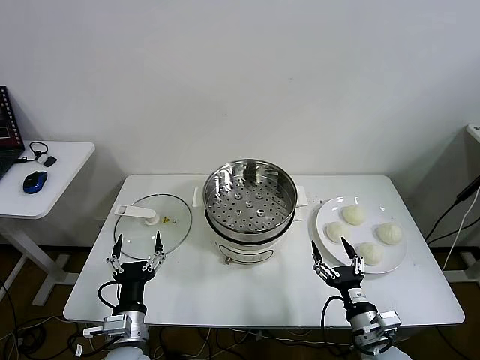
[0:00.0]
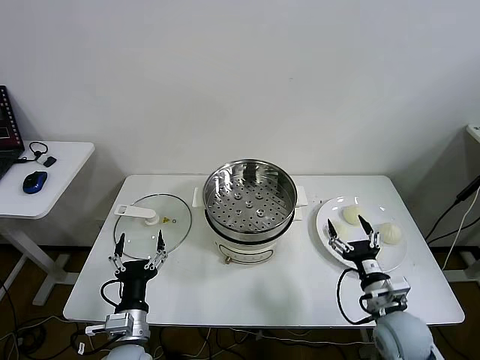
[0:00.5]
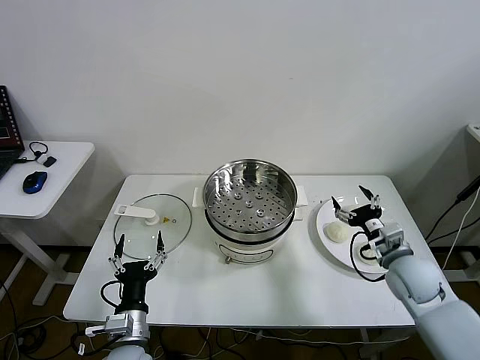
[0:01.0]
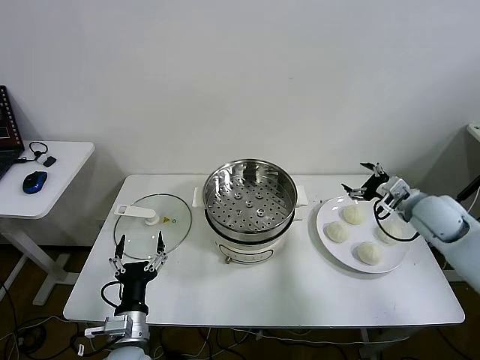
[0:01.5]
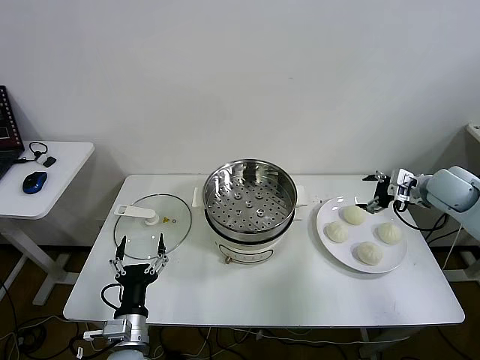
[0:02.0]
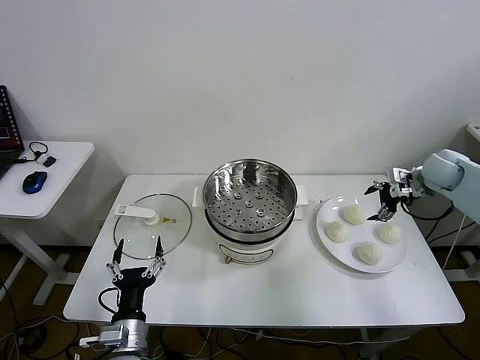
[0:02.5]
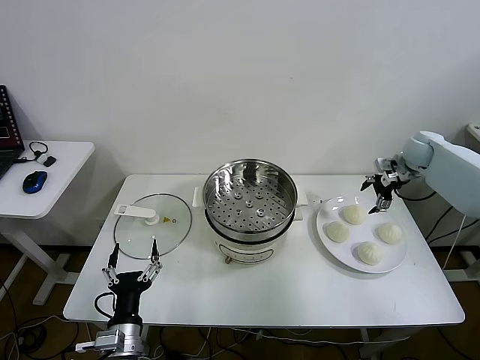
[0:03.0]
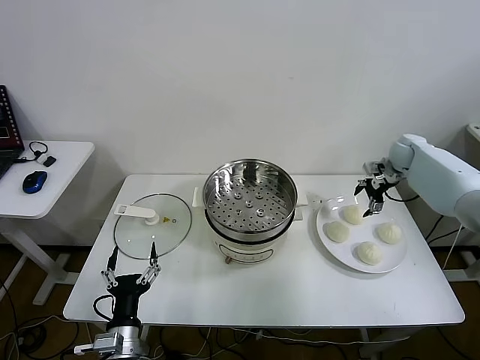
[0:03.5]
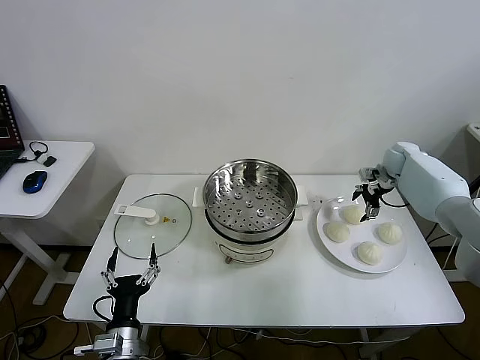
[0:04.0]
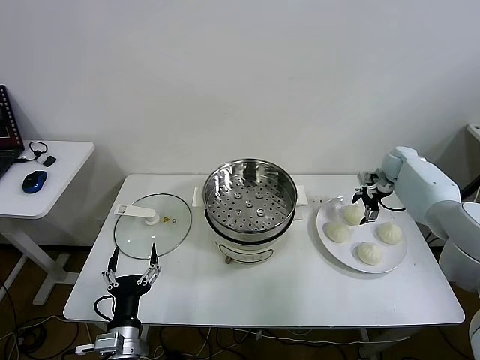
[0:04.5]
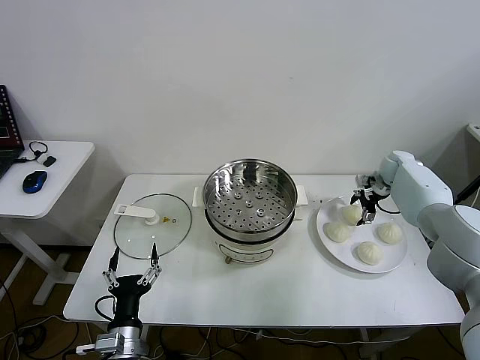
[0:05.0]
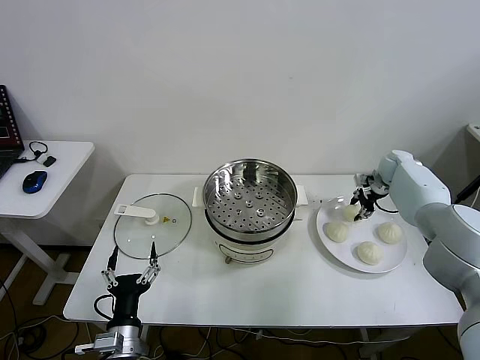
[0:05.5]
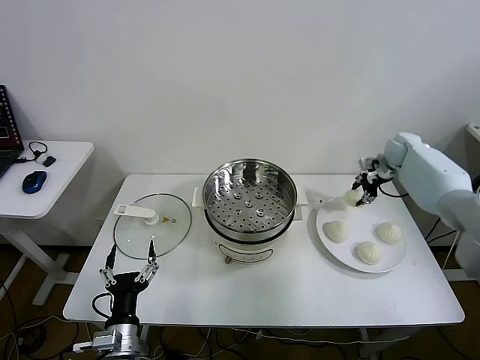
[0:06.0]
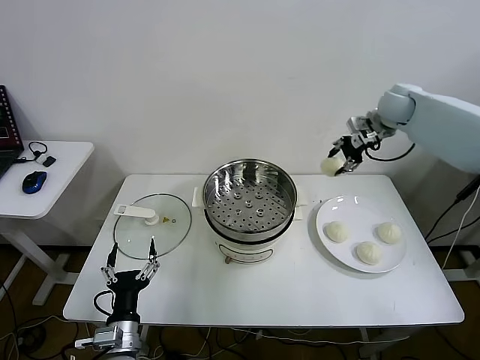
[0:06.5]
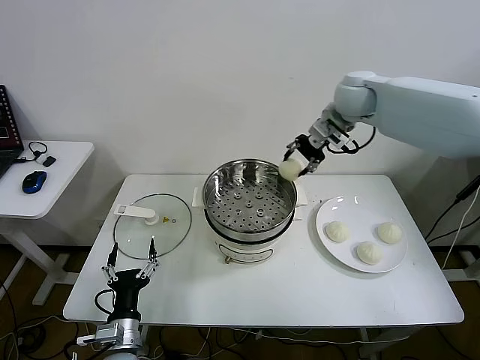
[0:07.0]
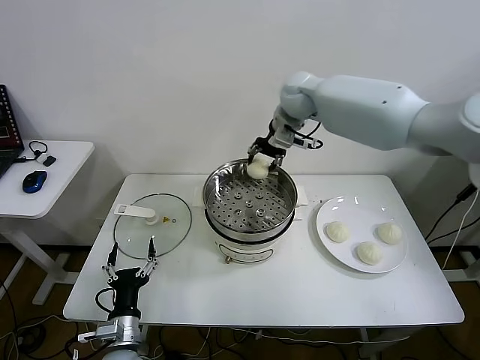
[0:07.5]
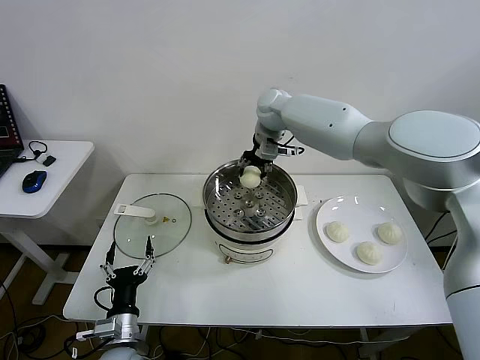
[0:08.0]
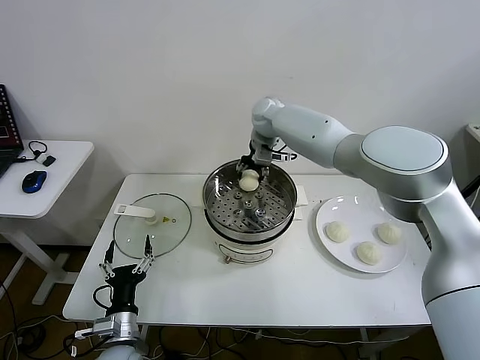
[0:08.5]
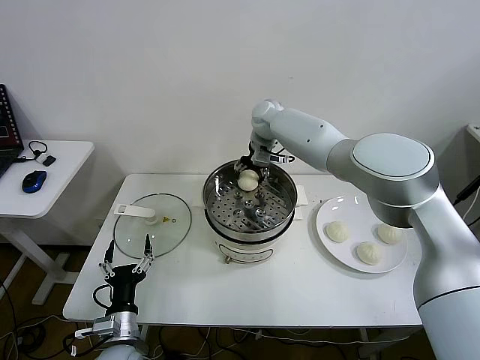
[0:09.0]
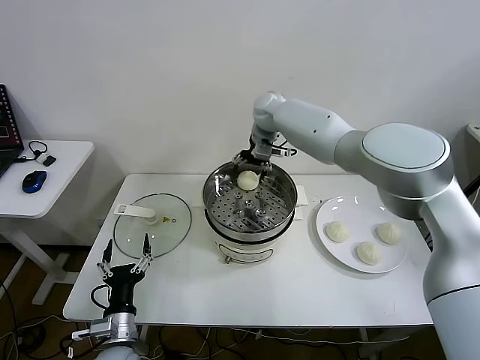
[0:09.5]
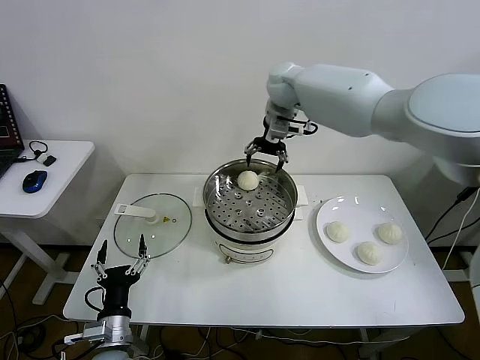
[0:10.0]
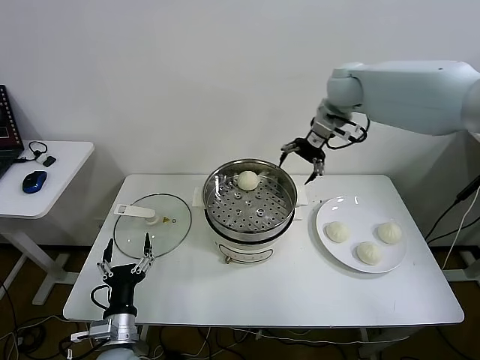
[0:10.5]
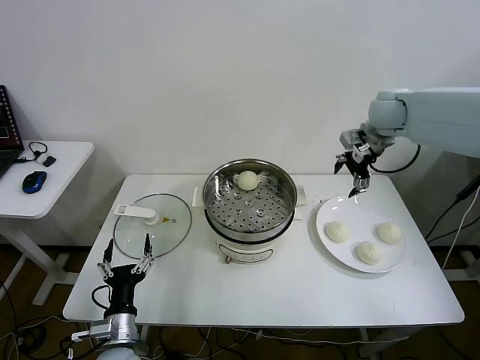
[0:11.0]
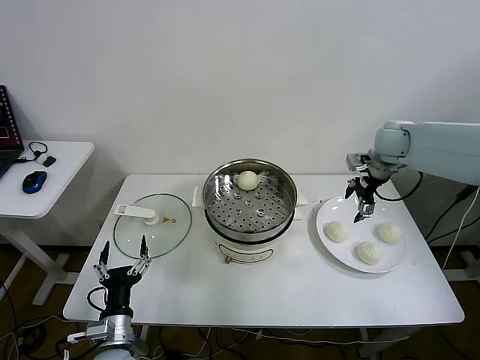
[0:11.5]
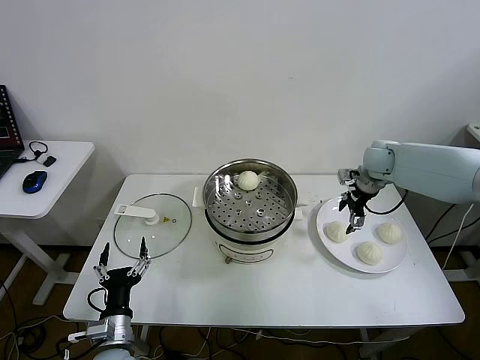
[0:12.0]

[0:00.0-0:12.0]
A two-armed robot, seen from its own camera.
Step, 0:00.0 to 0:05.0: Grasp the baozi in the plate with right gripper.
Step, 0:05.5 to 0:09.5: Place the baozi on the steamer with right gripper.
0:02.0 to 0:04.0: The right gripper is displaced forward and downward by approximately 15 cm.
0:04.0 to 0:06.0: The right gripper heads upward, covering about 5 cm, and closes.
0:06.0 to 0:08.0: The right gripper moves to the left, about 35 cm.
0:08.0 to 0:10.0: The right gripper travels upward by approximately 10 cm, and opens its fingers.
0:10.0 to 0:12.0: The right gripper moves to the right and downward, approximately 30 cm.

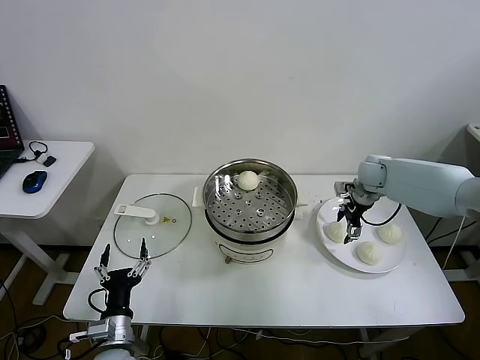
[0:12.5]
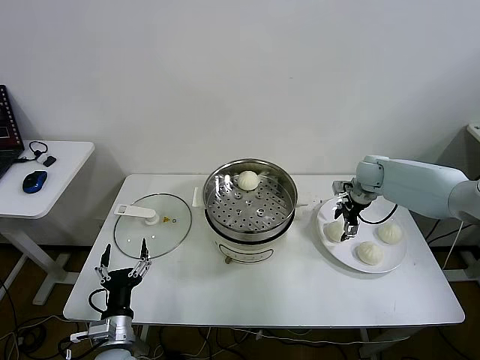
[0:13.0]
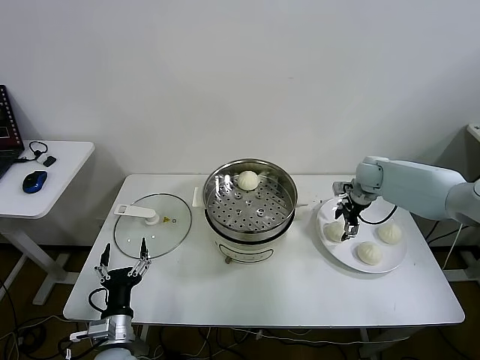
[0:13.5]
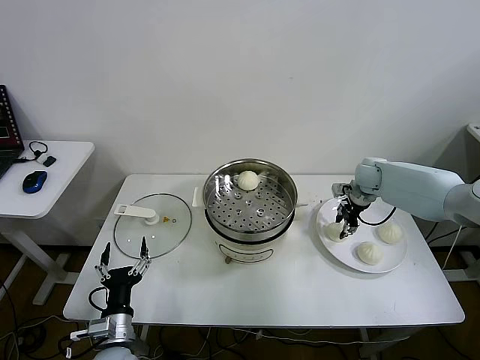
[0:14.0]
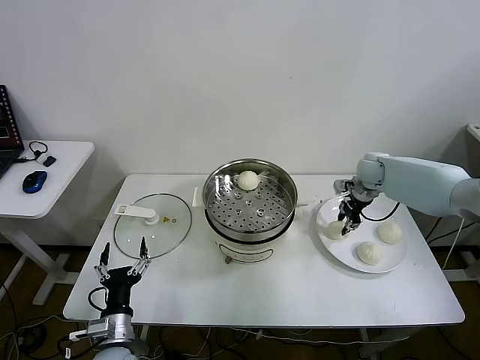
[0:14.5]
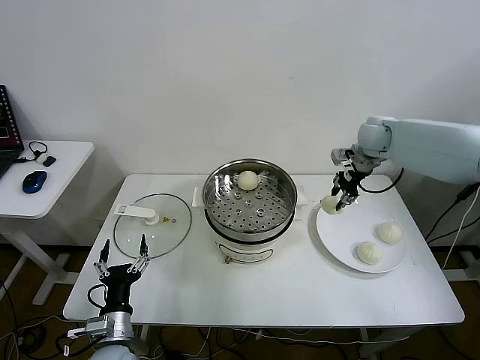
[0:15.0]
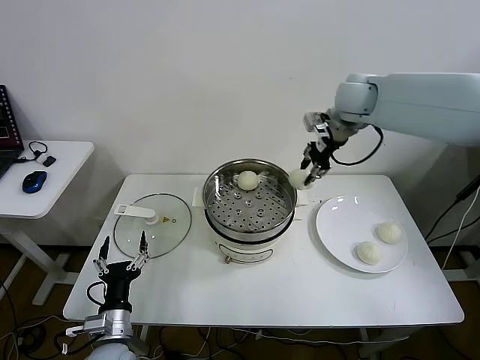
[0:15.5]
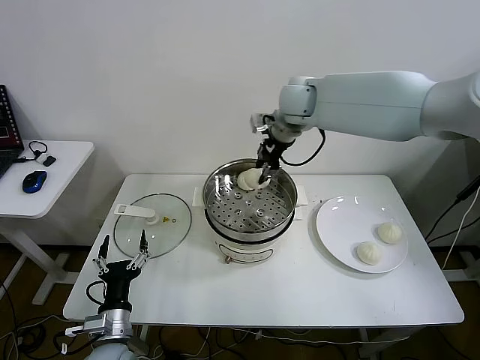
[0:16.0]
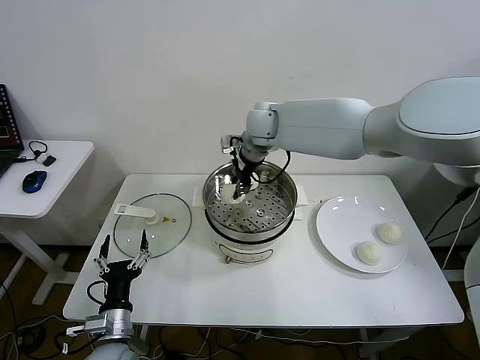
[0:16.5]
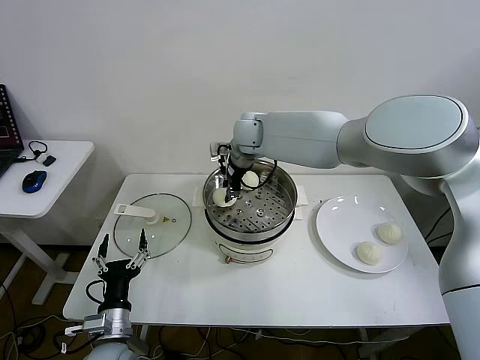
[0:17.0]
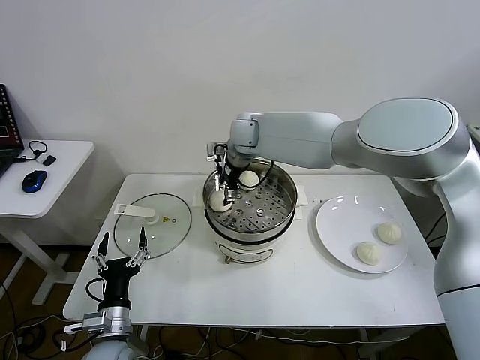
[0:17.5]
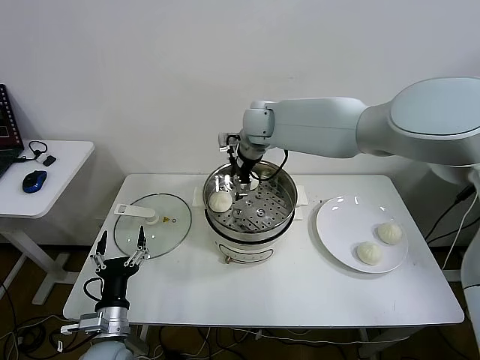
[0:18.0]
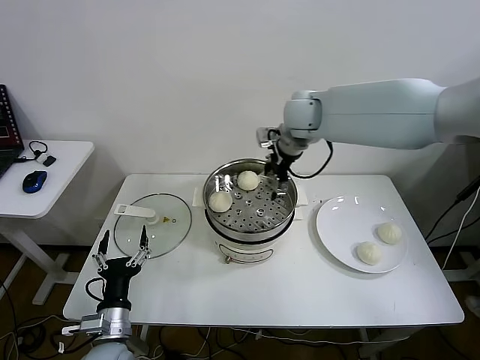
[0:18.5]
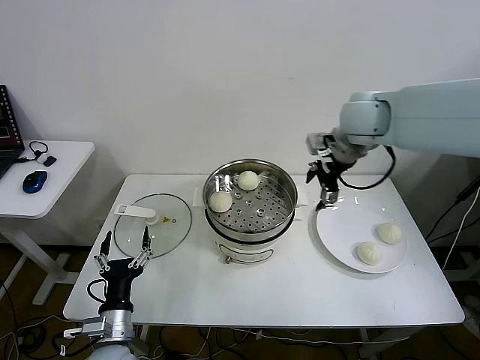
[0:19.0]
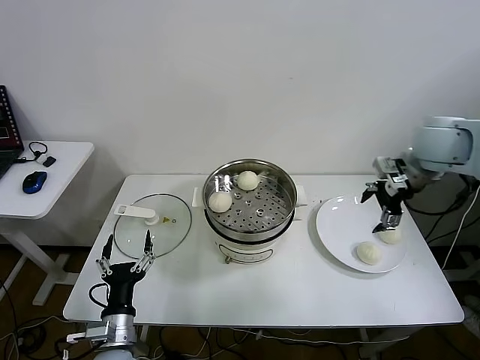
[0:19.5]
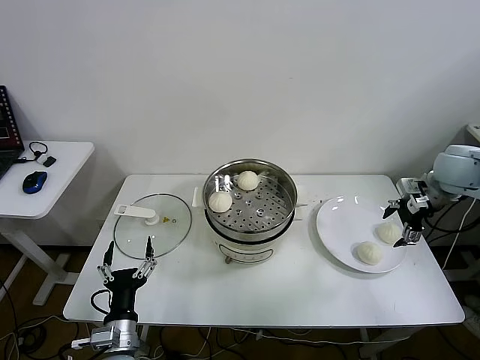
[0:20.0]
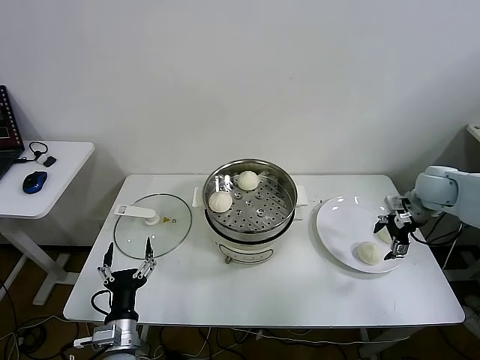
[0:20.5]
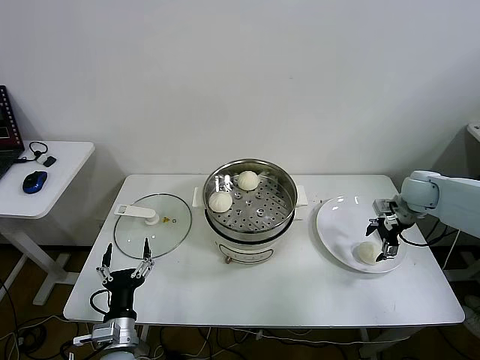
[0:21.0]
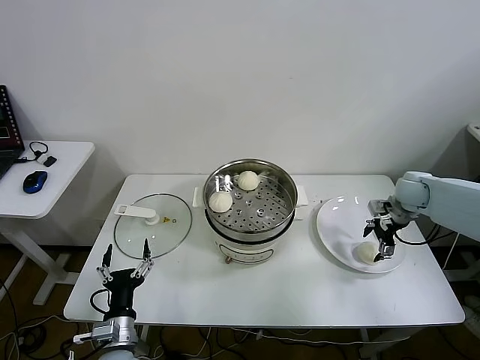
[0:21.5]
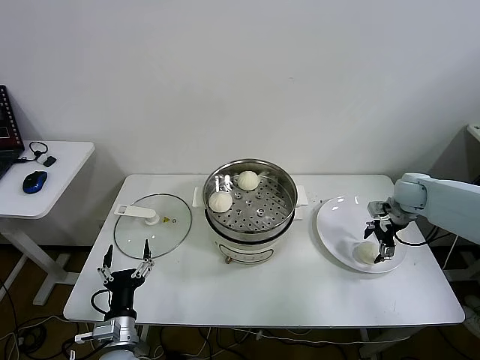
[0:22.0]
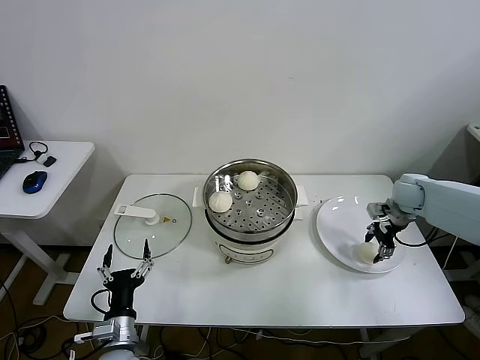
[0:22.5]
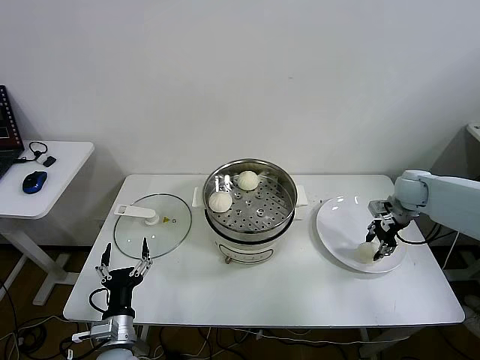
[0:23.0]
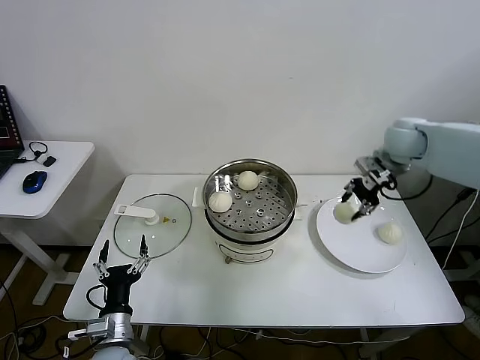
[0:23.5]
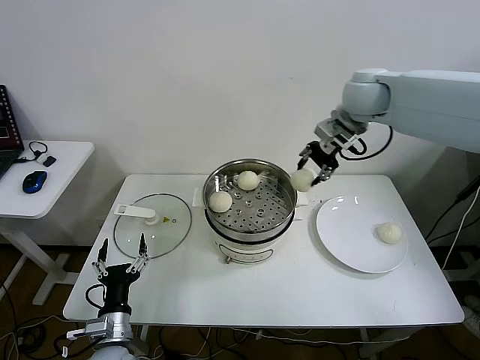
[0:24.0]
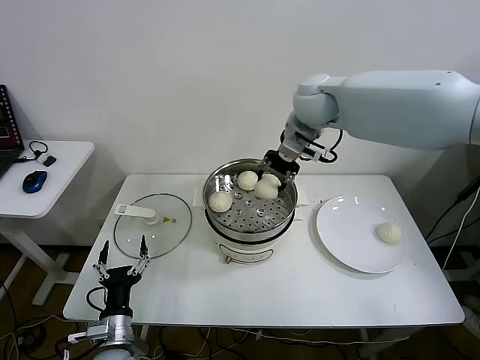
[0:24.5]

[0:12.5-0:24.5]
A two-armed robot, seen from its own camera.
Step, 0:14.5 to 0:17.5: Place the baozi on the steamer with right gripper.
Step, 0:18.0 to 0:22.5: Grasp the baozi in the plate with right gripper.
0:12.5 to 0:14.5: The right gripper closes its fingers.
0:14.5 to 0:16.5: The right gripper travels to the left and upward by some 35 cm.
0:16.5 to 0:18.5: The right gripper travels to the right by roughly 10 cm, and opens up.
0:18.5 to 0:20.5: The right gripper travels to the right and downward by about 35 cm.
0:20.5 to 0:22.5: The right gripper shifts some 5 cm downward, and closes up.
0:22.5 to 0:24.5: The right gripper travels to the left and upward by some 40 cm.

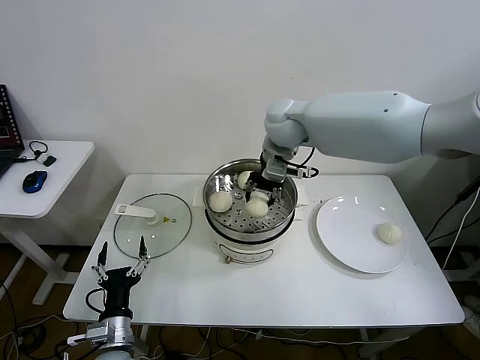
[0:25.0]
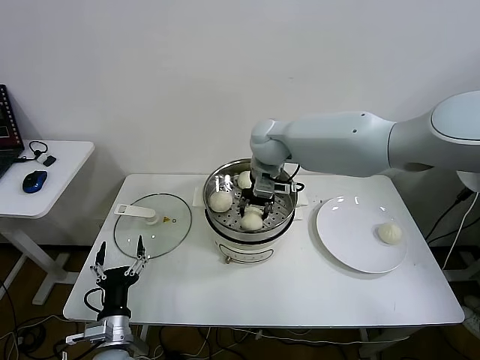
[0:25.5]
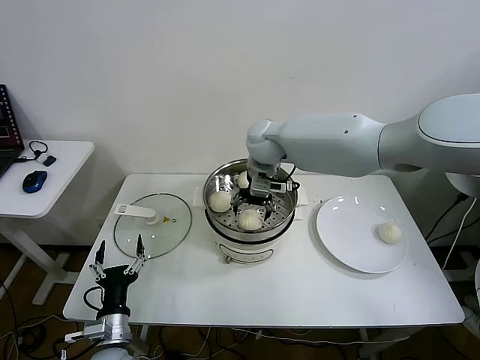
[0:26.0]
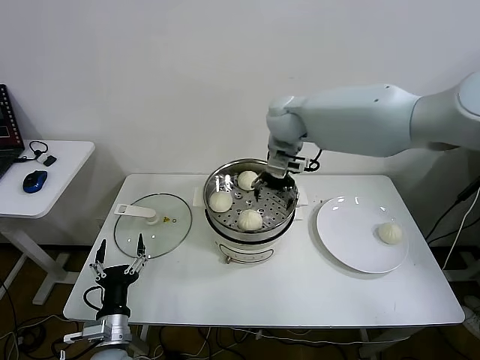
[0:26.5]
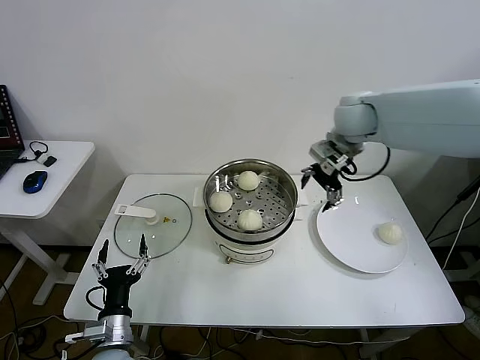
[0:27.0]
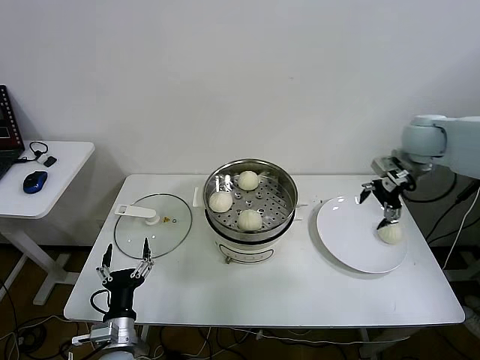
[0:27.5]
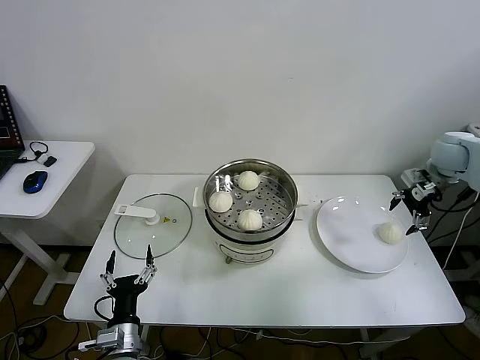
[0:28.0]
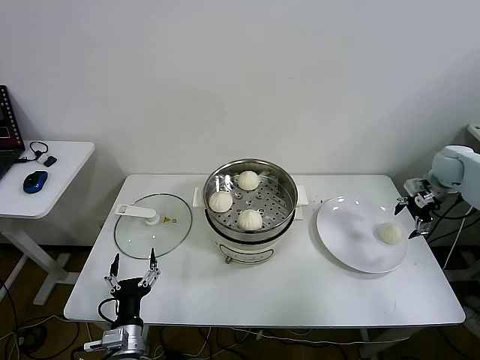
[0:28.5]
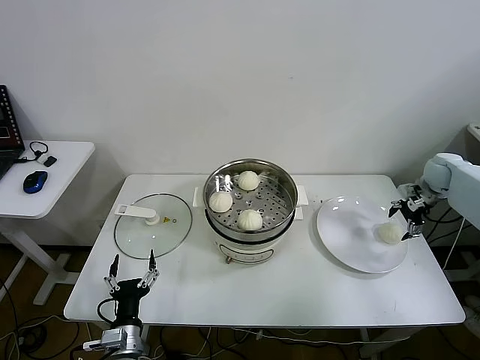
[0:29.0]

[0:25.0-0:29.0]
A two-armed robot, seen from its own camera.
0:25.0 to 0:27.0: The right gripper is displaced to the right by about 15 cm, and opens its fingers.
0:27.0 to 0:29.0: The right gripper goes about 35 cm to the right and downward.
